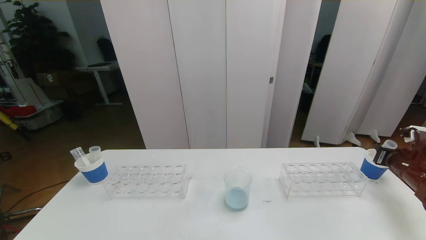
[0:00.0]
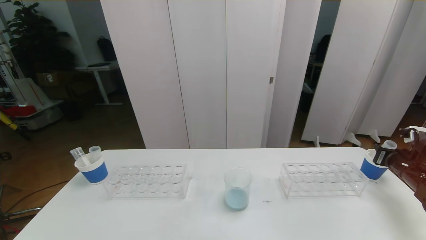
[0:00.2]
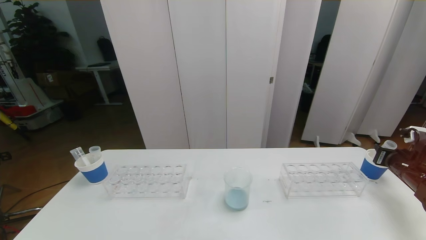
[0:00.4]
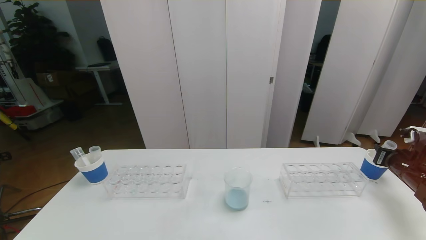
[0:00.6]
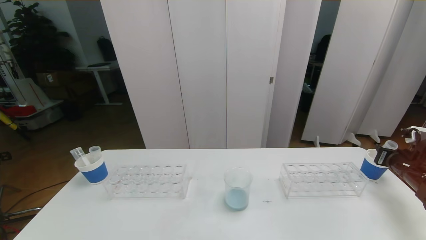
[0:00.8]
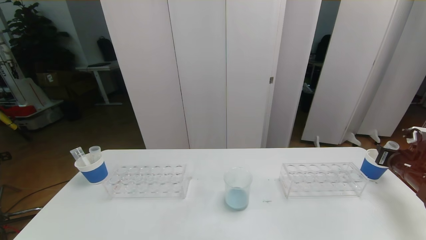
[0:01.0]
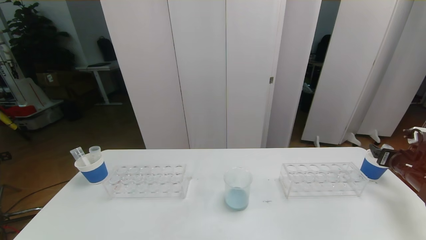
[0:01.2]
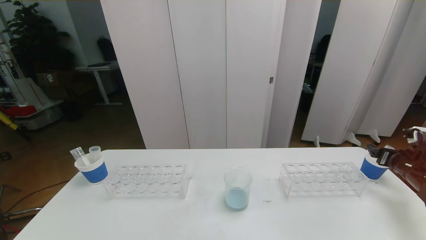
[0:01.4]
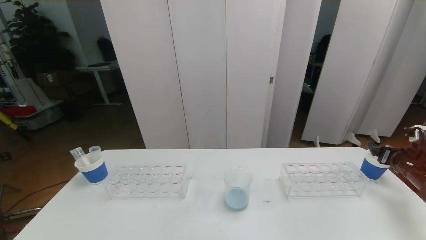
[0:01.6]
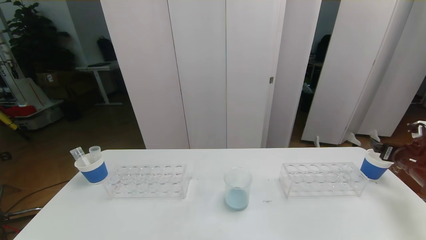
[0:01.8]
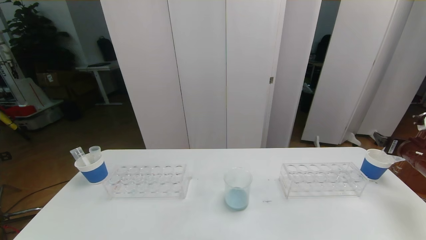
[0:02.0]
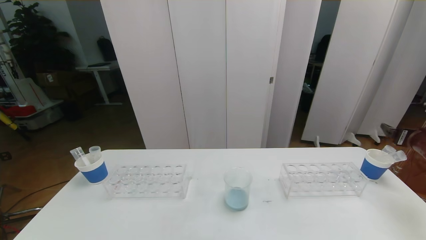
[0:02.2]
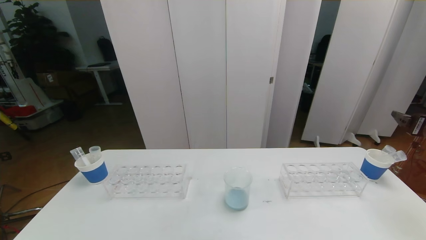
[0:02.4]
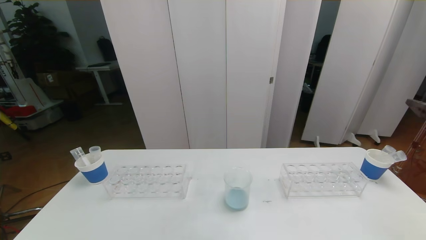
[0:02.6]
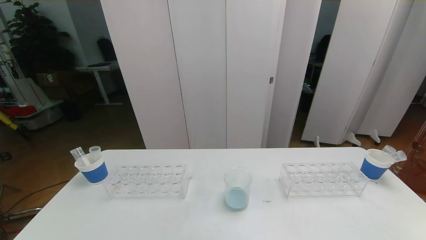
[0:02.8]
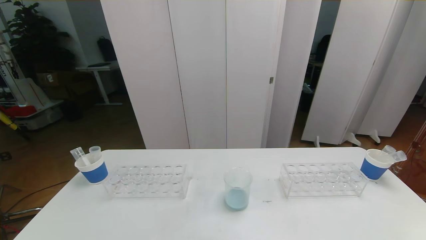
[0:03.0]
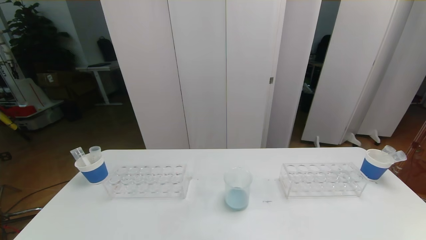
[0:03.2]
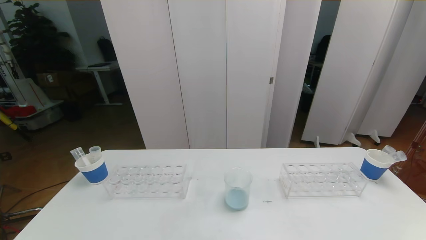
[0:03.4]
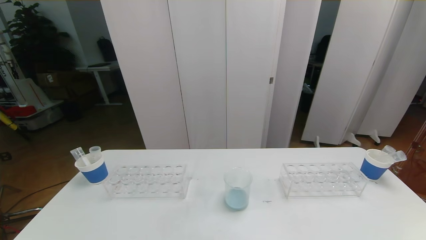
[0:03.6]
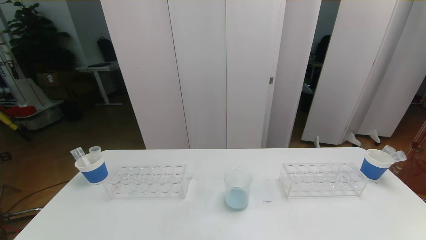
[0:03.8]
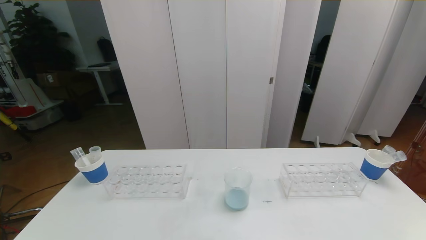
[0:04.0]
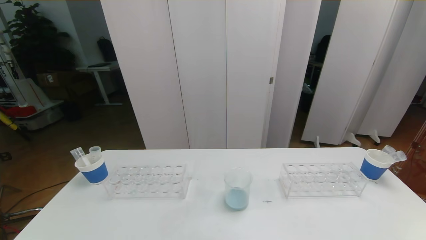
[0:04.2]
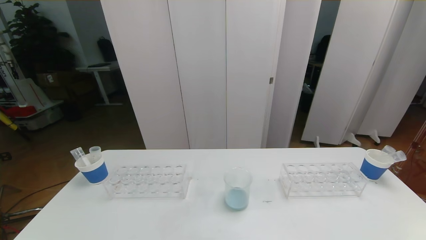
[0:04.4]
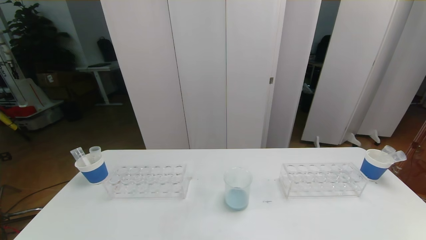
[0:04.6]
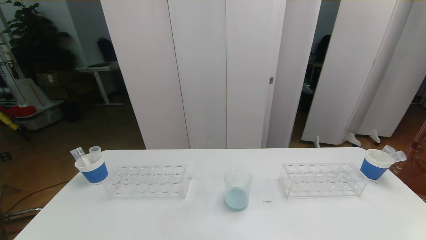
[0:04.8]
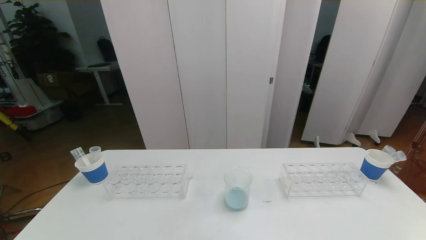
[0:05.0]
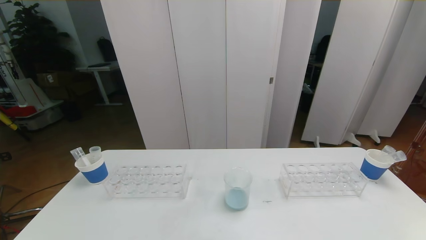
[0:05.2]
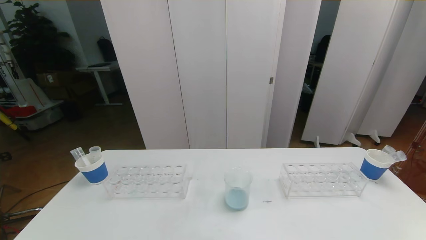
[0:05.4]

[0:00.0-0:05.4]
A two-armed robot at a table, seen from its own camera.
Task of the whole recording: pick up the test tube with red pigment the test tube with blue pigment and the test tube with white pigment by grippers and pour them into the beaker.
0:00.0 to 0:01.4: The right gripper opens up.
0:01.4 to 0:02.8: The right gripper goes approximately 25 cm upward and backward.
